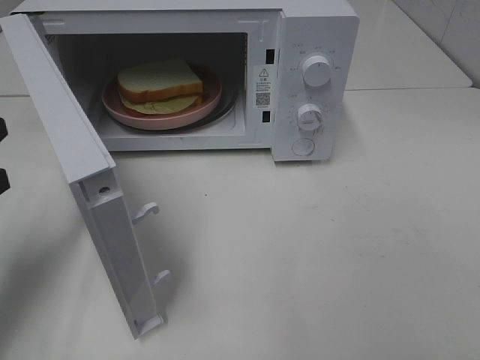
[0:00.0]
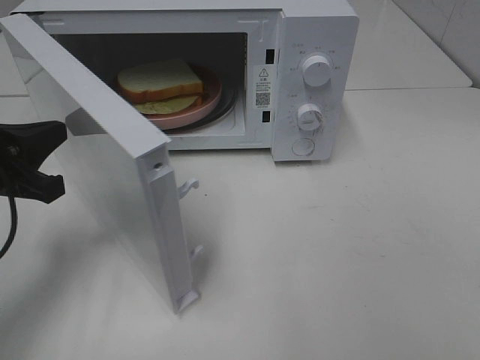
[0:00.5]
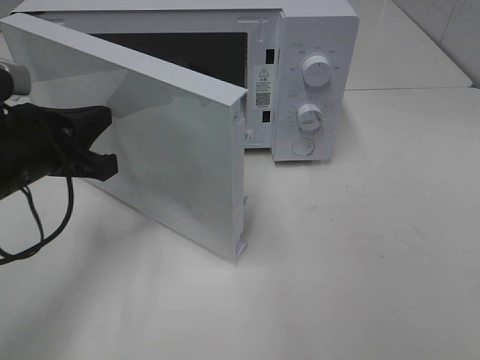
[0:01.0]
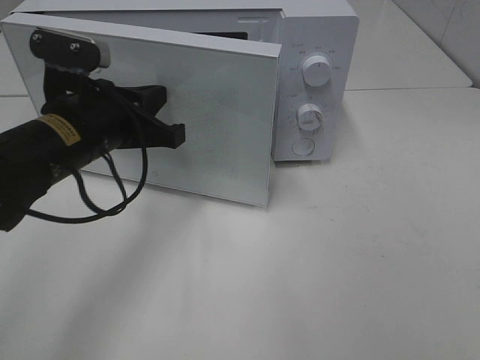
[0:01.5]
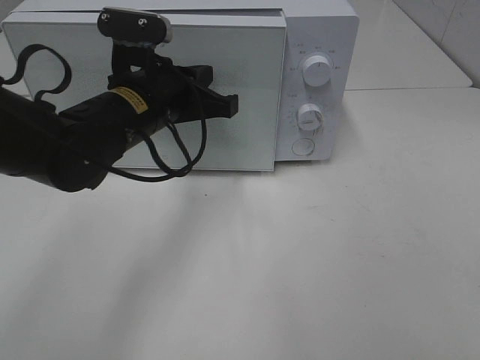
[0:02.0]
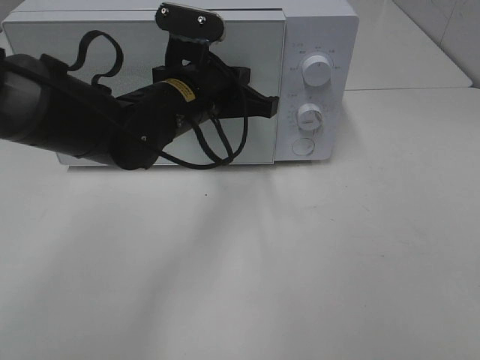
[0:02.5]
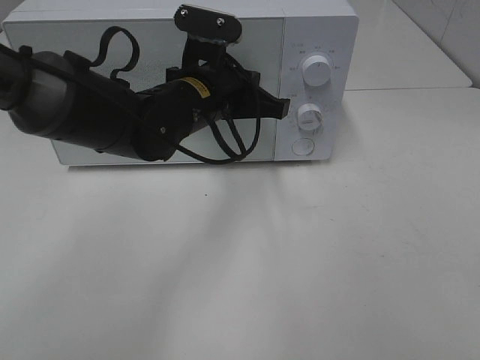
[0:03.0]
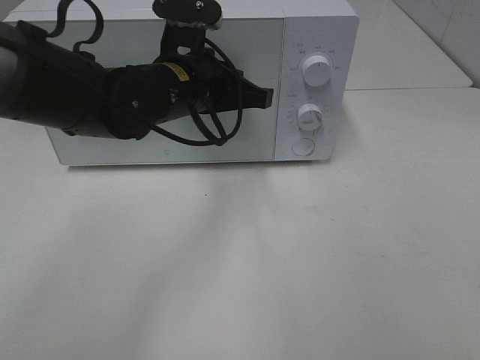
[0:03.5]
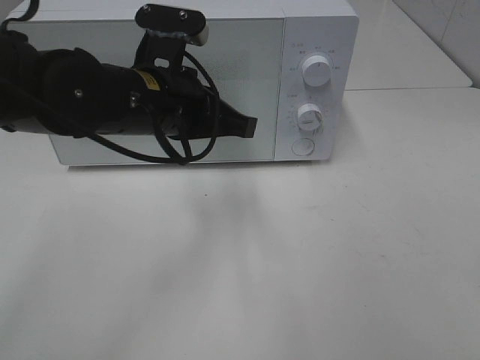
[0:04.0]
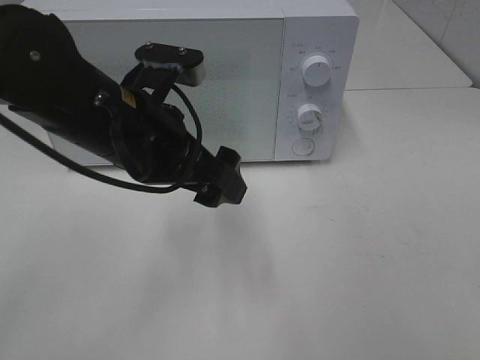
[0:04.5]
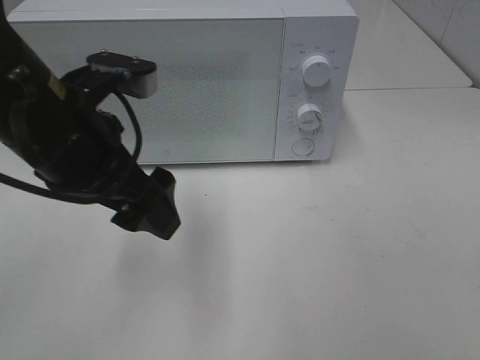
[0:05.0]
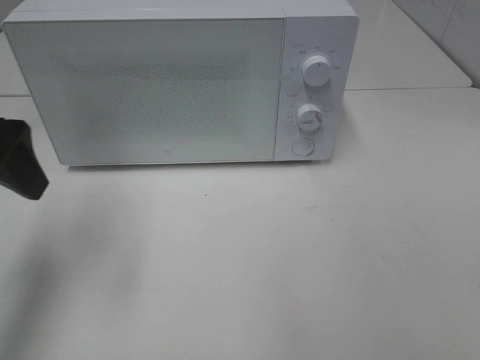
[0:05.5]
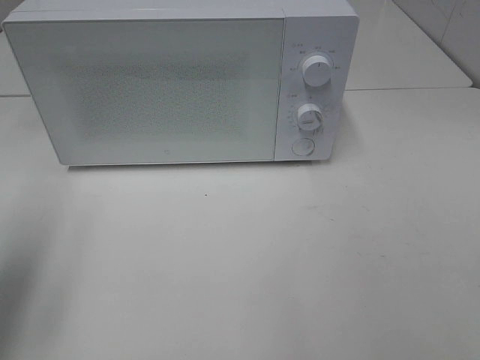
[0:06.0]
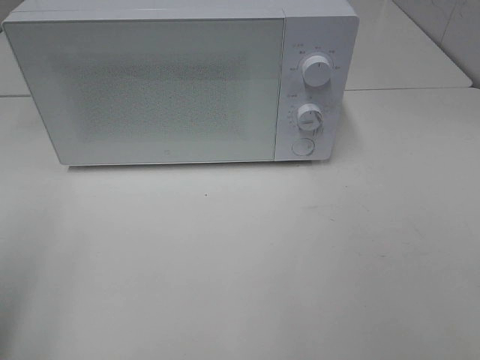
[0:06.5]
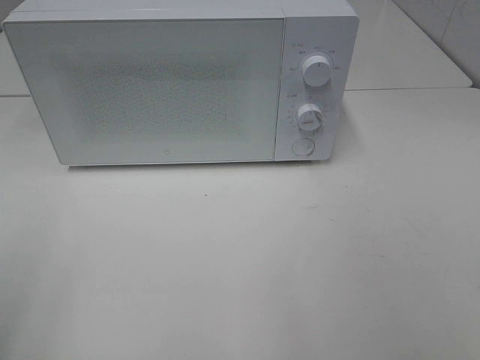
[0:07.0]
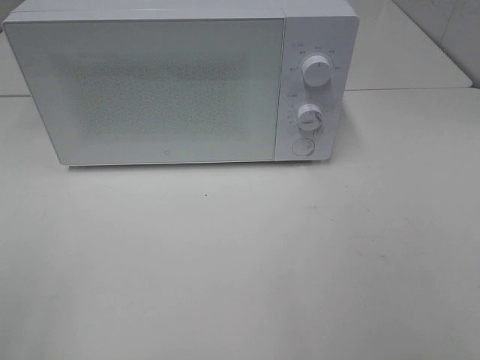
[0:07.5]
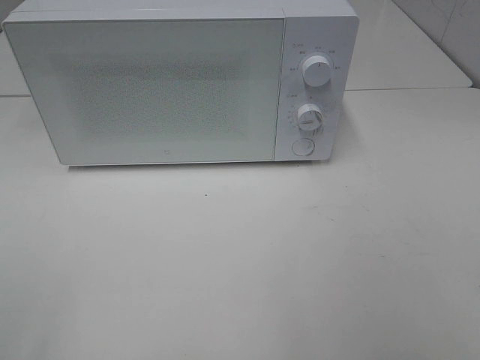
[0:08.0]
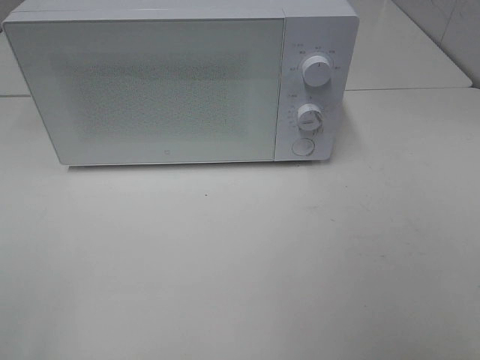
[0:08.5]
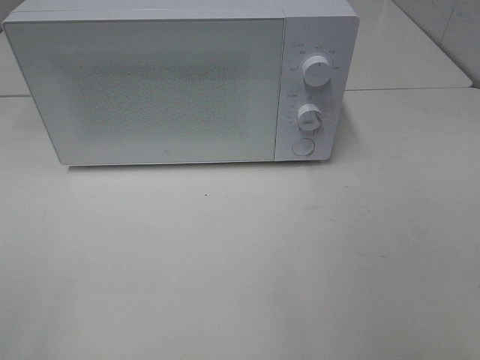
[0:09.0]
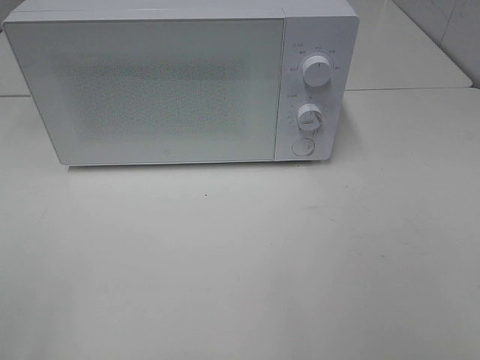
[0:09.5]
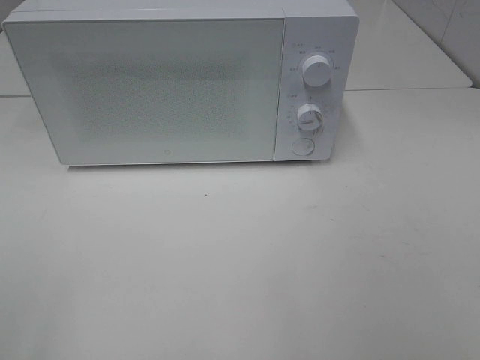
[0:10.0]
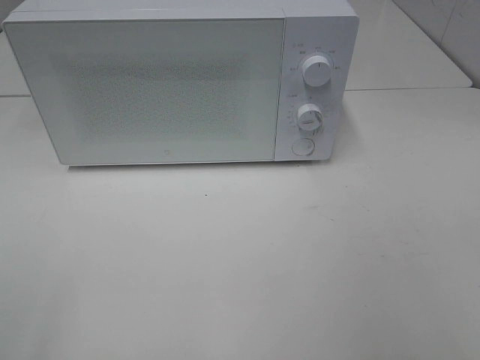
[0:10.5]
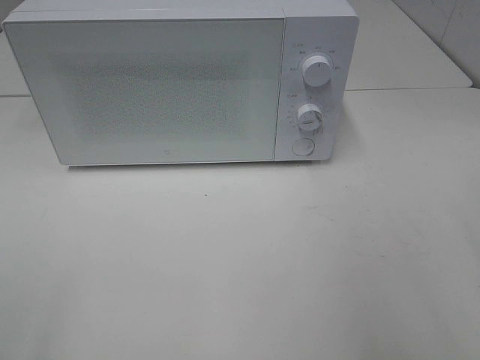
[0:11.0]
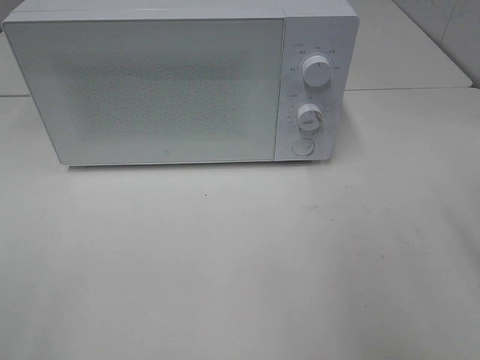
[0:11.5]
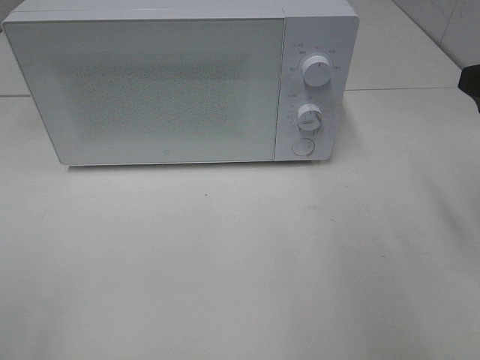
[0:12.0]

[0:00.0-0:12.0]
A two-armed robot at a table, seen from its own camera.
Task of the whole recording: Heat Sandwich.
Step, 0:00.0 to 0:04.0: Left hand: close the microwave door.
0:00.0 to 0:02.0: The left gripper moves to the right and forward, about 25 cm.
0:04.0 to 0:06.0: The left gripper heads to the left and backward, covering about 25 cm, and opens.
0:06.0 to 0:08.0: The left gripper moves backward, roughly 20 cm.
0:08.0 to 0:10.0: Both grippers stay put.

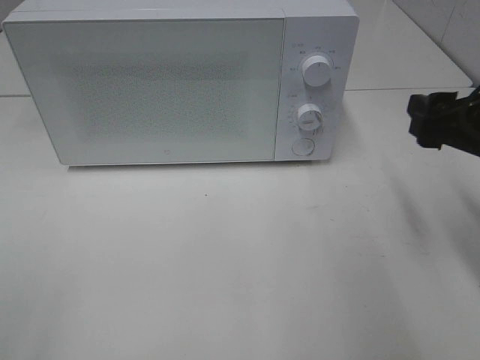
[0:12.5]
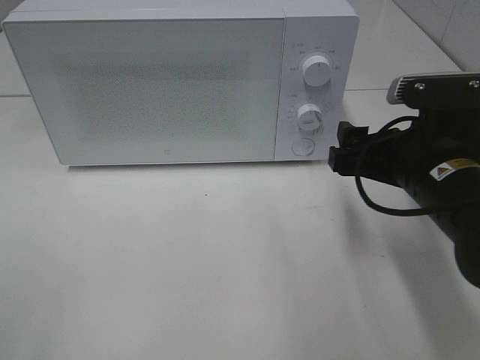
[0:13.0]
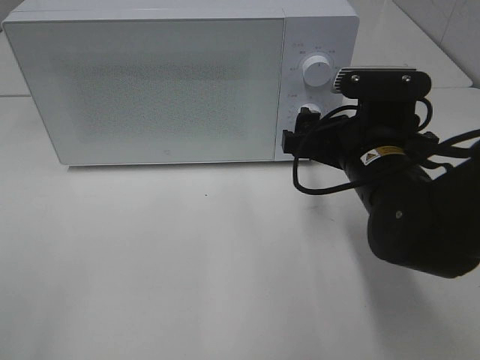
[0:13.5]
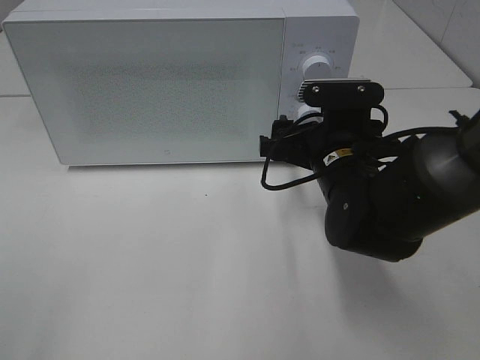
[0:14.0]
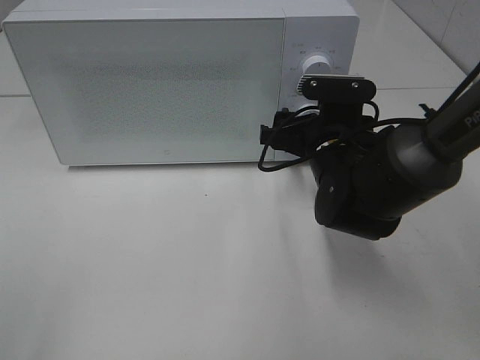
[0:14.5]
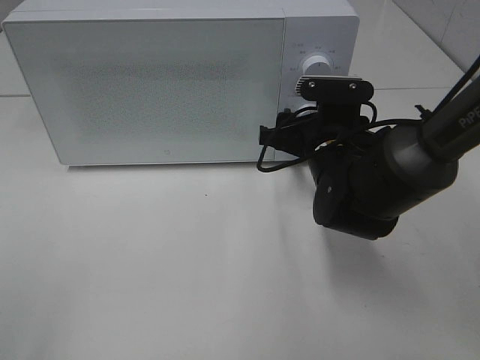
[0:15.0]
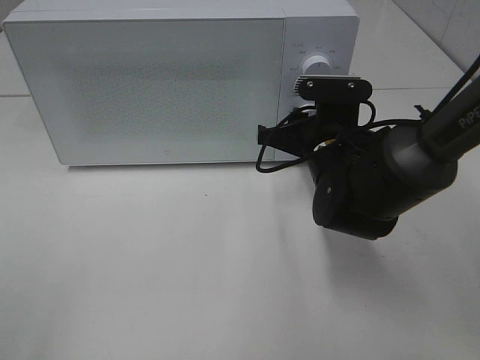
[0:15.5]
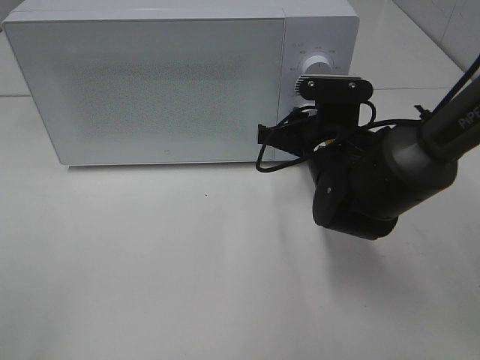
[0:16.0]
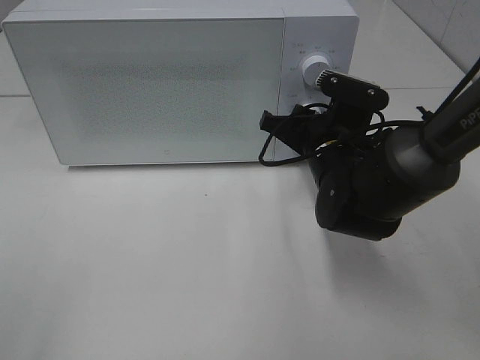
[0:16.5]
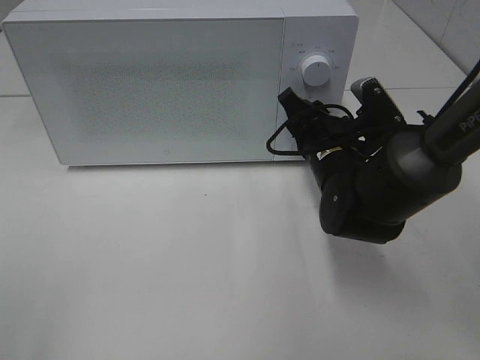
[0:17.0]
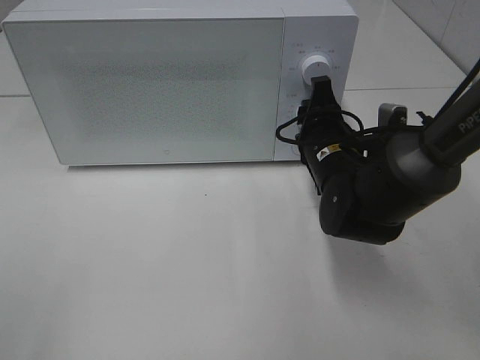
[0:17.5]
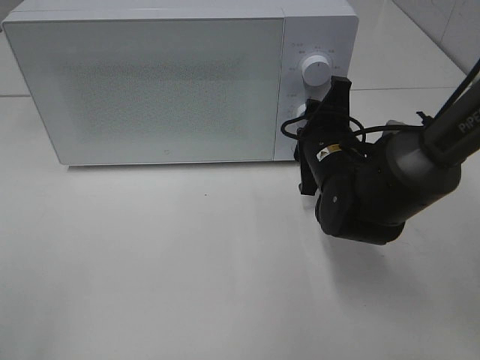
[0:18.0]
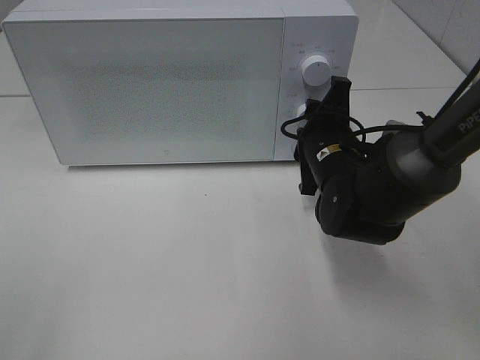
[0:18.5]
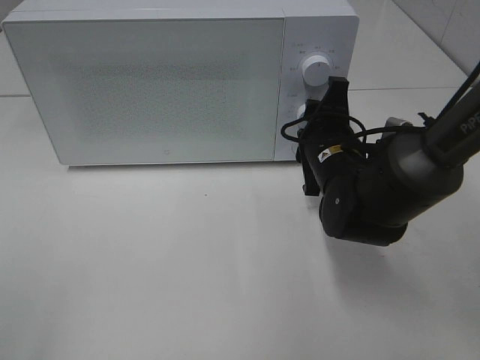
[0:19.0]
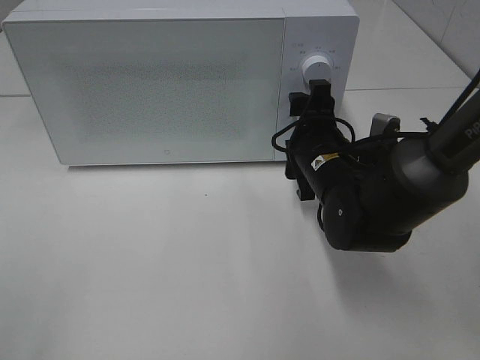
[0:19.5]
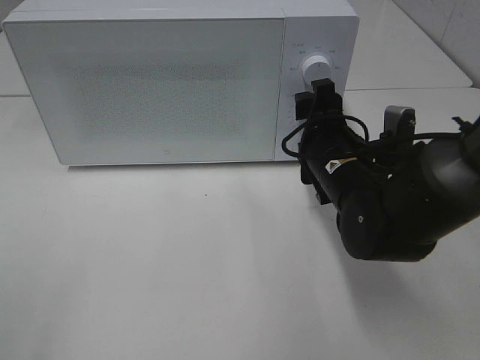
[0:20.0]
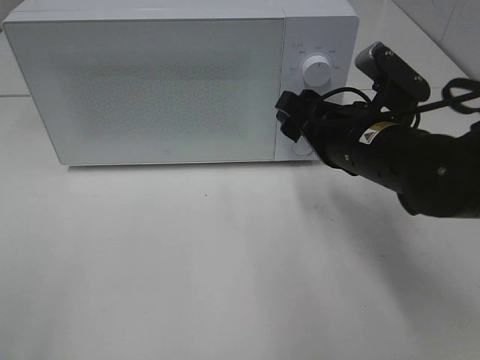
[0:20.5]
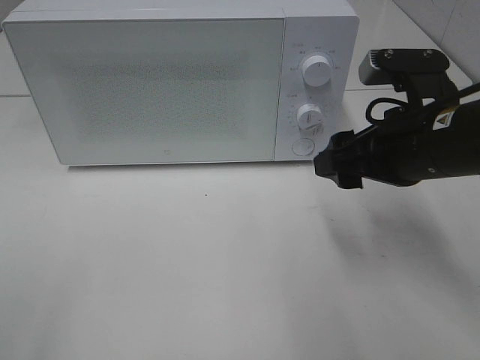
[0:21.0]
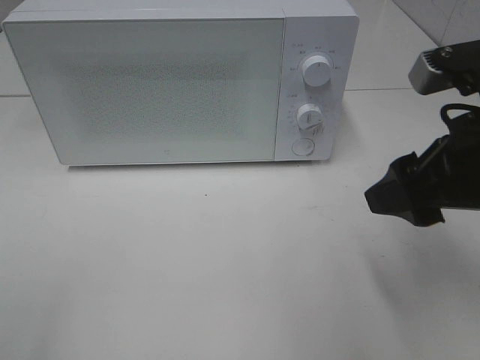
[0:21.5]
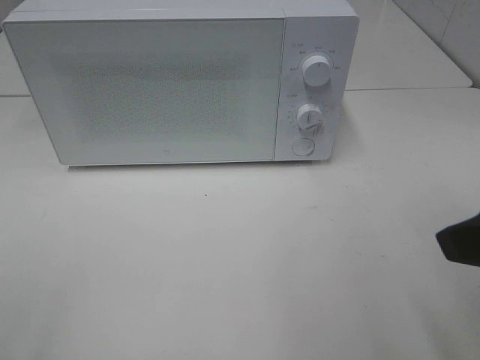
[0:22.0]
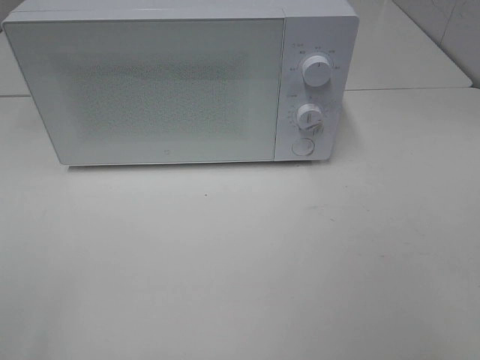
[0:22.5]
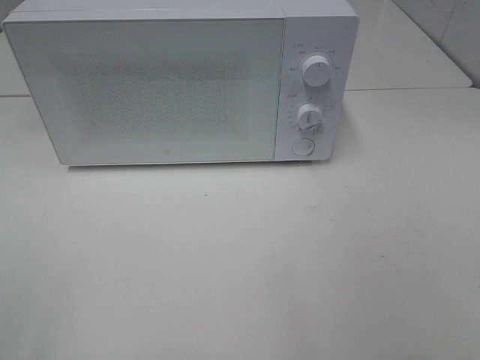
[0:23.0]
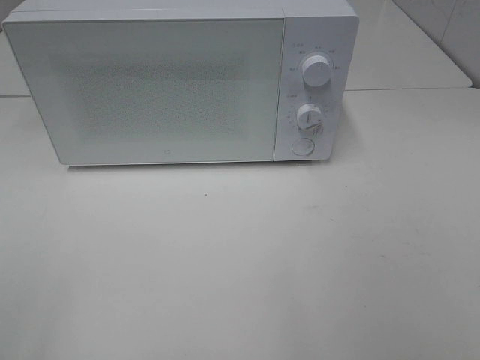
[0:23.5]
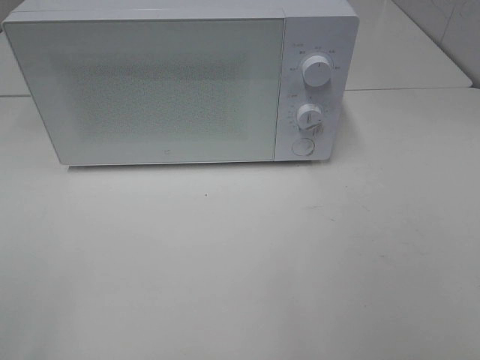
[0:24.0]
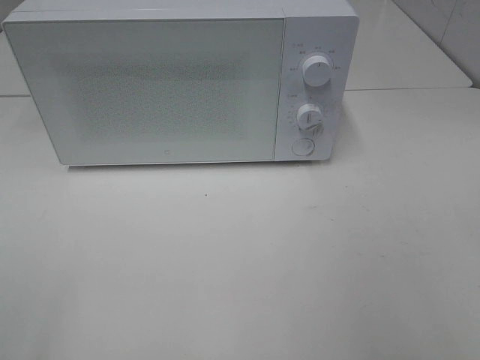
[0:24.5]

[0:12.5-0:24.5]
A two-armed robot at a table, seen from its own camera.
Task of the whole recording: Heat Sandwich.
Step, 0:12.5 to 0:19.5: Right hand: twist timer button.
0:12.5 to 0:14.5: The right gripper travels to the left, forward and downward by some 20 cm.
0:14.5 to 0:16.5: The right gripper closes its fingers.
0:18.5 to 0:20.5: The right gripper moves upward and backward, roughly 10 cm.
0:20.5 to 0:22.5: The right gripper goes about 30 cm backward, to the right and upward.

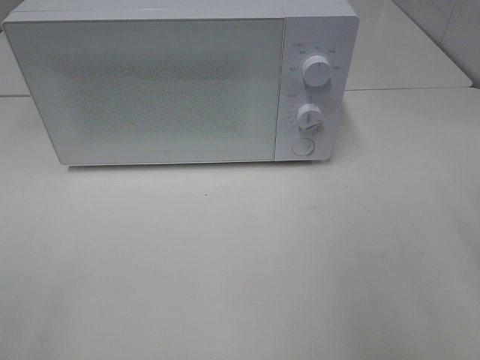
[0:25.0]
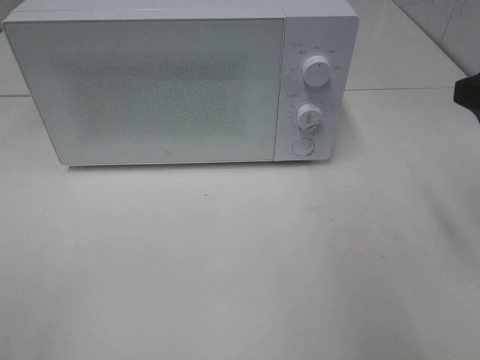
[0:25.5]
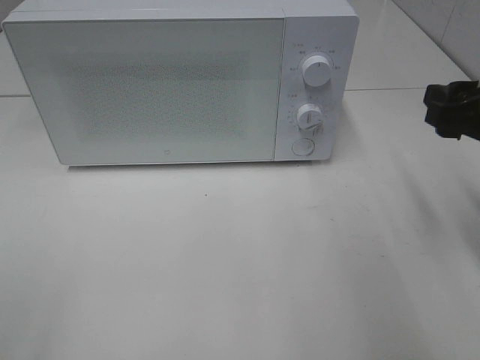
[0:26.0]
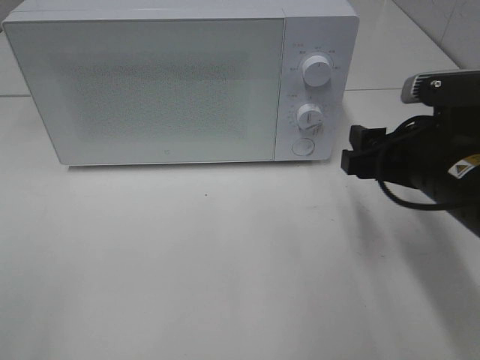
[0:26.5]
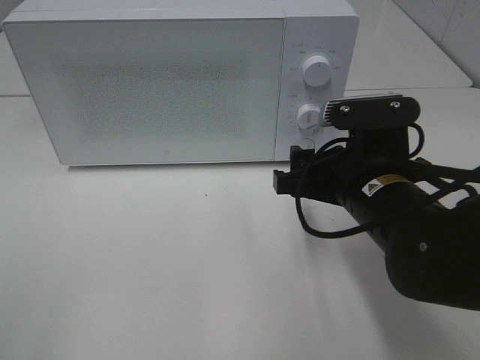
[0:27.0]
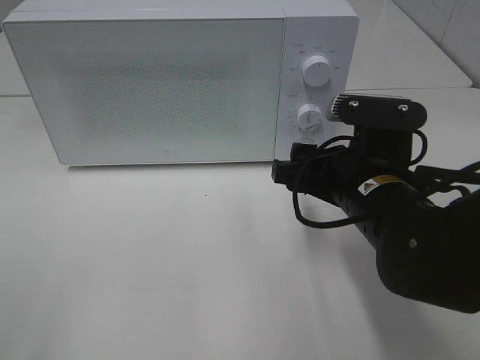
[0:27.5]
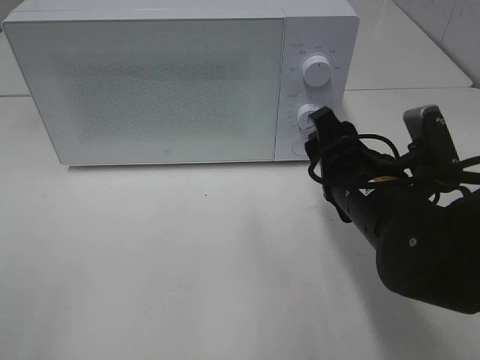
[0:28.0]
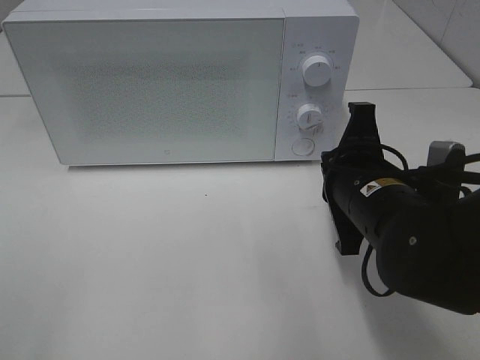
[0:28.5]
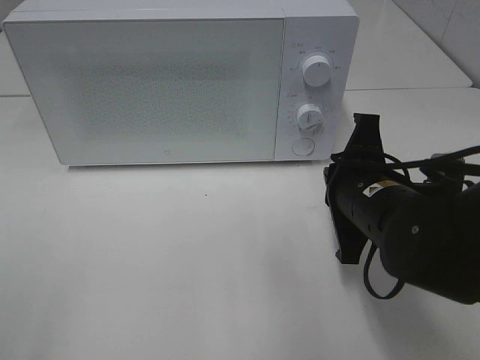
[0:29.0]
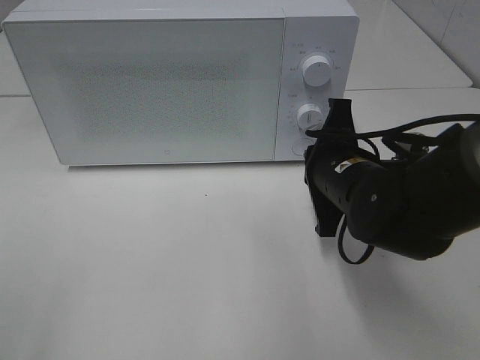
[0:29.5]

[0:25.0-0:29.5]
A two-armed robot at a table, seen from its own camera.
Task of the whole recording: Heat Sandwich.
0:25.0 to 0:27.0: The right gripper travels downward, to the left and forward by about 25 cm.
0:27.0 to 0:29.5: The right gripper moves approximately 5 cm, and closes.
